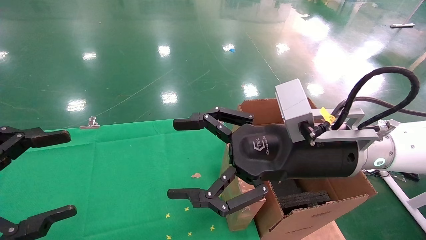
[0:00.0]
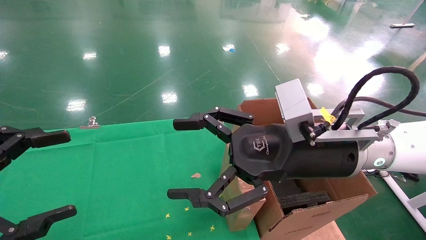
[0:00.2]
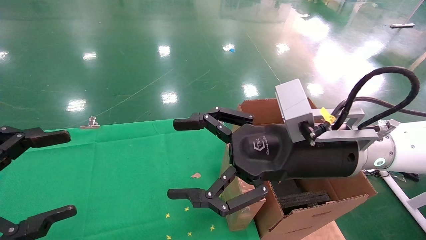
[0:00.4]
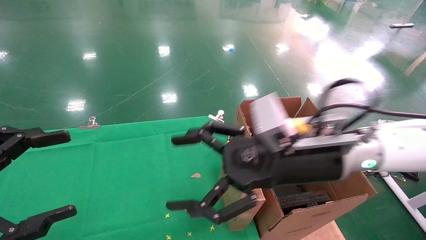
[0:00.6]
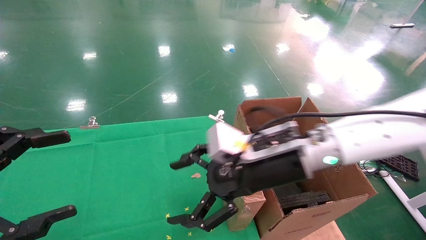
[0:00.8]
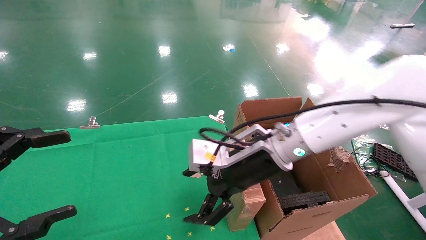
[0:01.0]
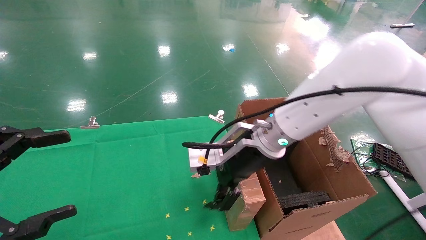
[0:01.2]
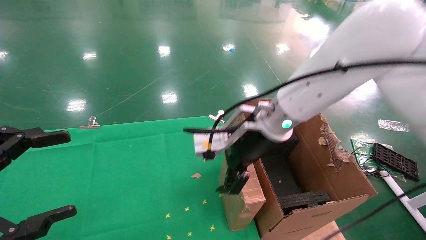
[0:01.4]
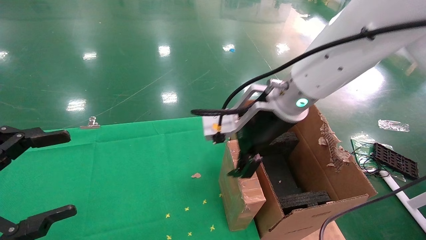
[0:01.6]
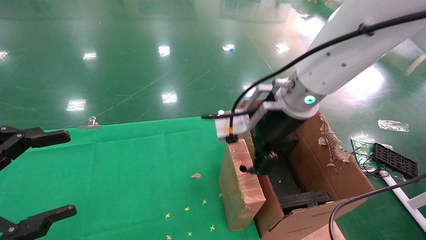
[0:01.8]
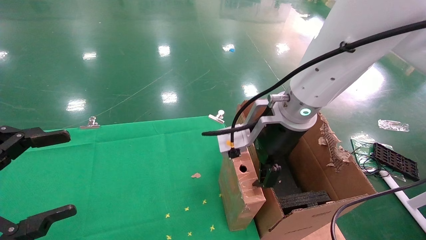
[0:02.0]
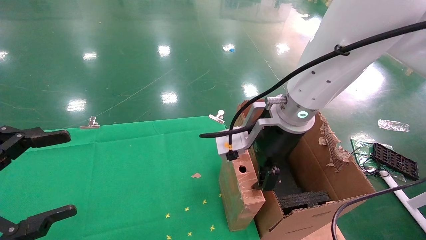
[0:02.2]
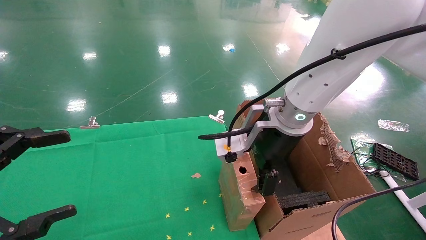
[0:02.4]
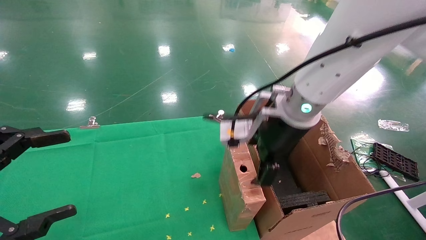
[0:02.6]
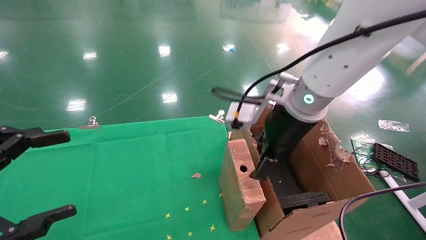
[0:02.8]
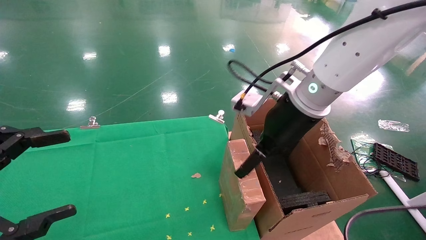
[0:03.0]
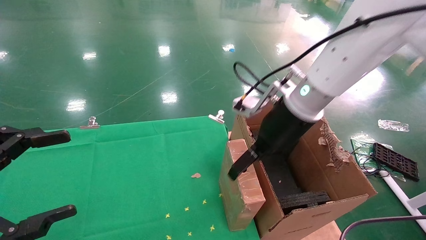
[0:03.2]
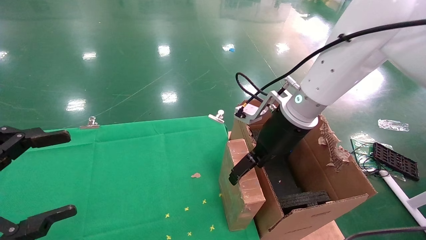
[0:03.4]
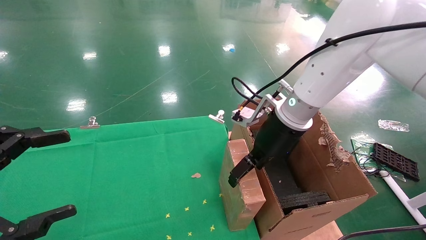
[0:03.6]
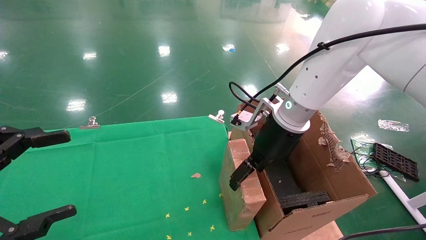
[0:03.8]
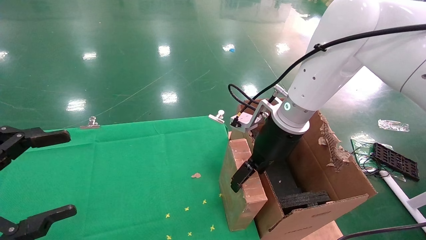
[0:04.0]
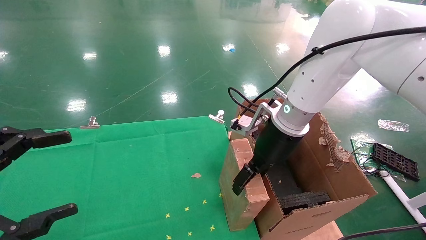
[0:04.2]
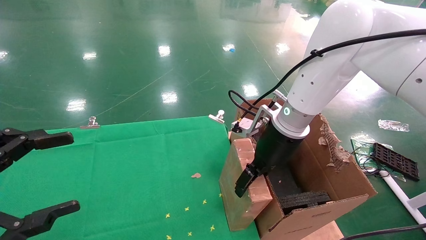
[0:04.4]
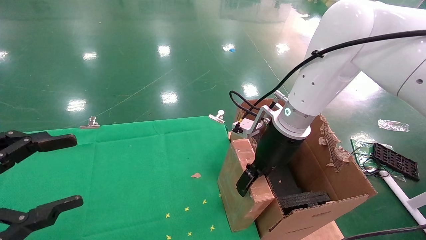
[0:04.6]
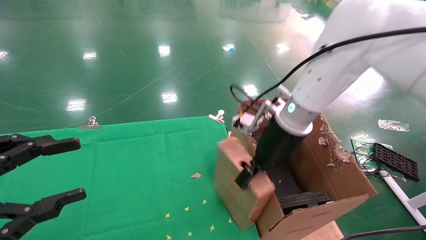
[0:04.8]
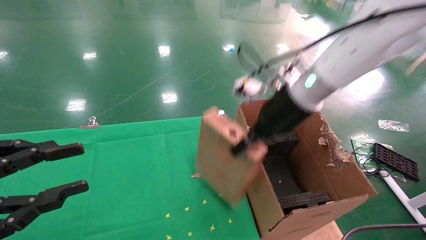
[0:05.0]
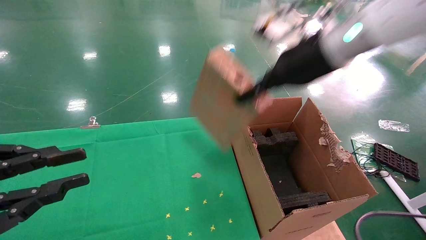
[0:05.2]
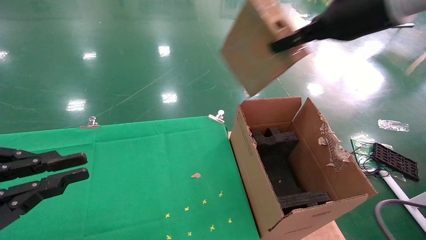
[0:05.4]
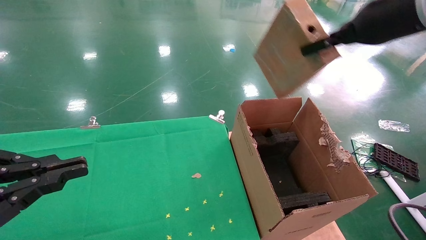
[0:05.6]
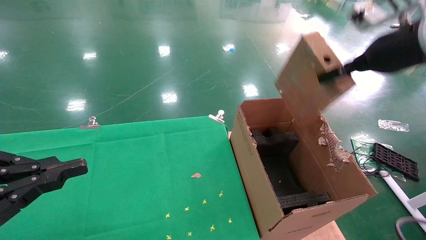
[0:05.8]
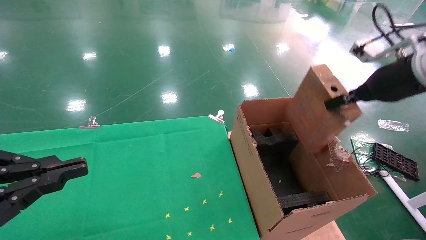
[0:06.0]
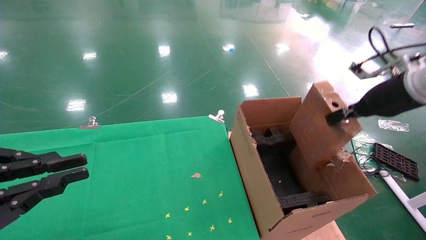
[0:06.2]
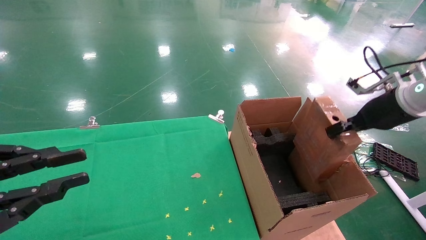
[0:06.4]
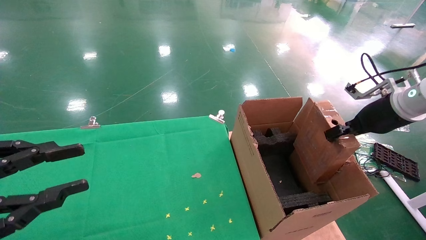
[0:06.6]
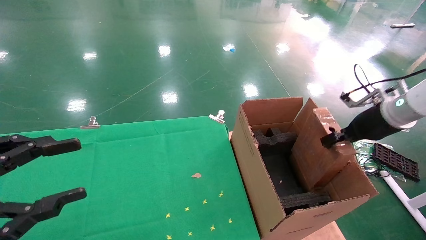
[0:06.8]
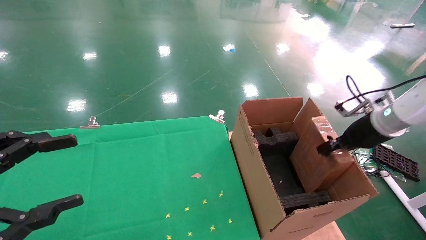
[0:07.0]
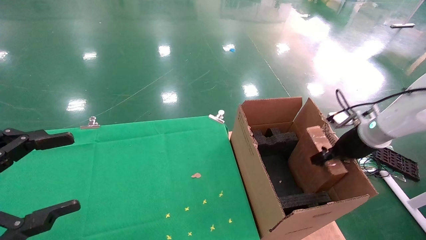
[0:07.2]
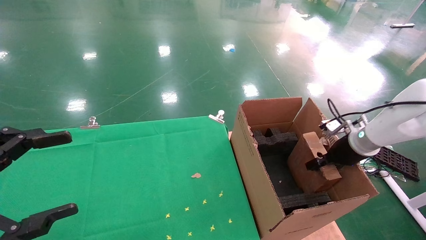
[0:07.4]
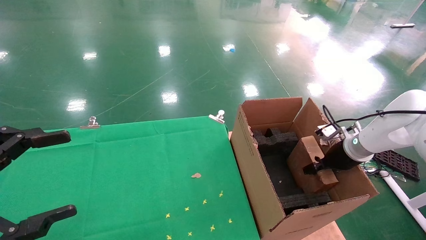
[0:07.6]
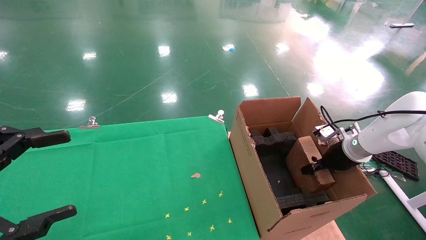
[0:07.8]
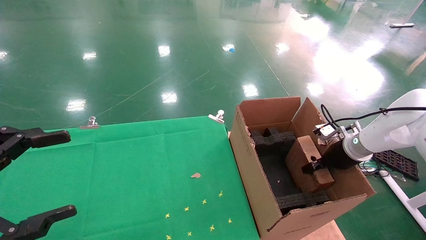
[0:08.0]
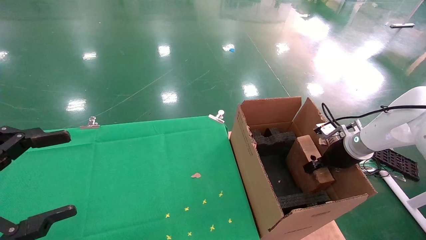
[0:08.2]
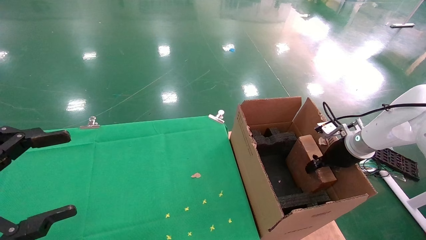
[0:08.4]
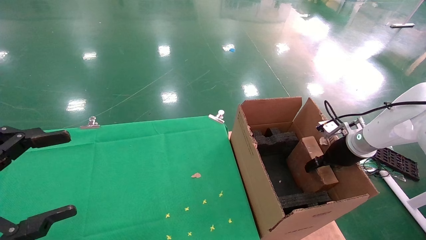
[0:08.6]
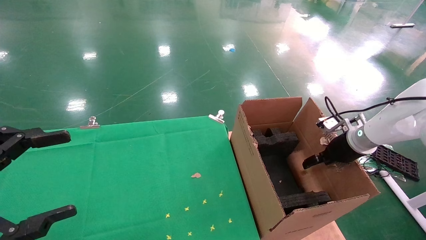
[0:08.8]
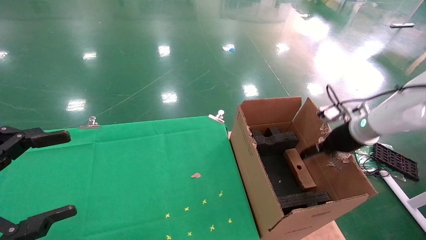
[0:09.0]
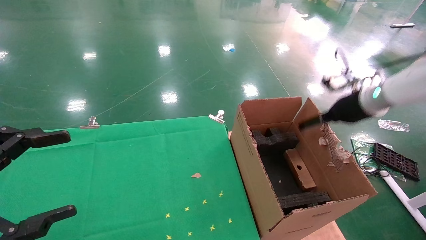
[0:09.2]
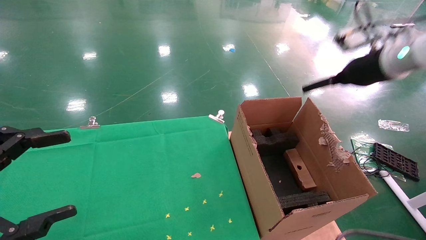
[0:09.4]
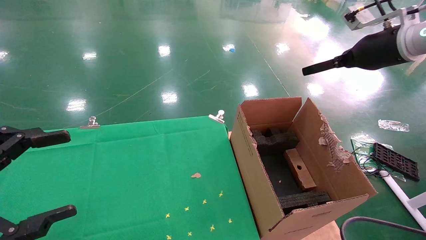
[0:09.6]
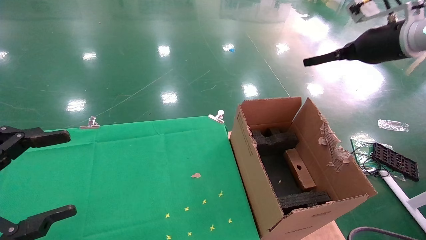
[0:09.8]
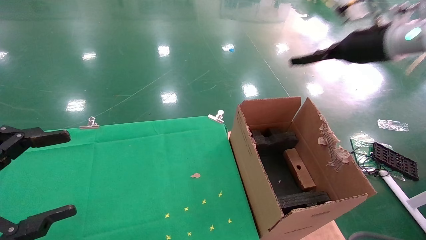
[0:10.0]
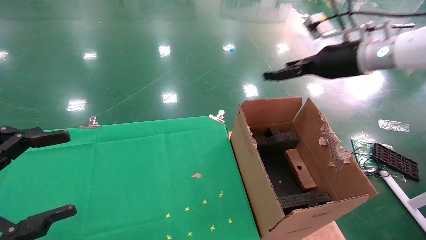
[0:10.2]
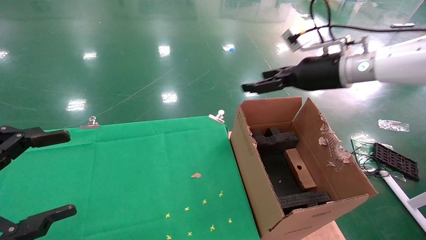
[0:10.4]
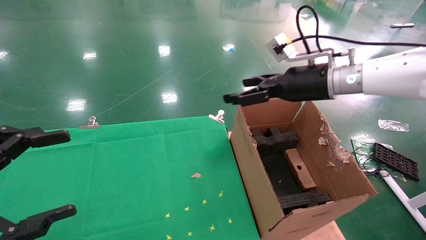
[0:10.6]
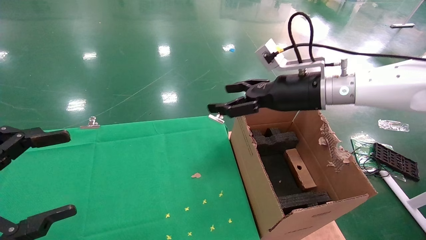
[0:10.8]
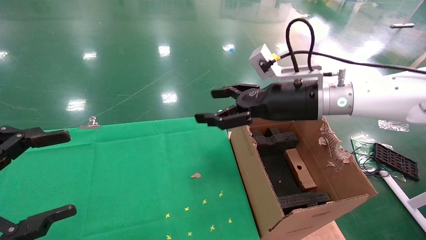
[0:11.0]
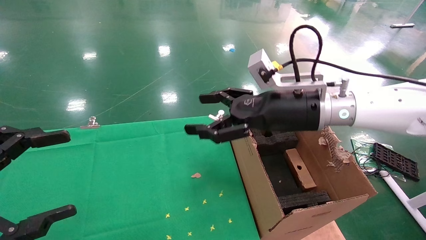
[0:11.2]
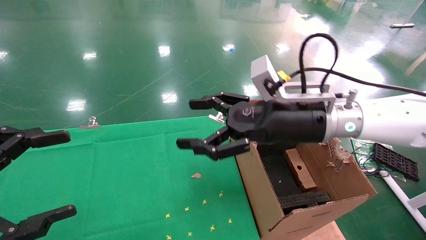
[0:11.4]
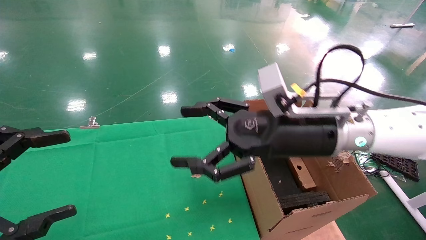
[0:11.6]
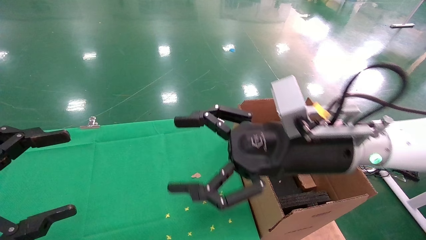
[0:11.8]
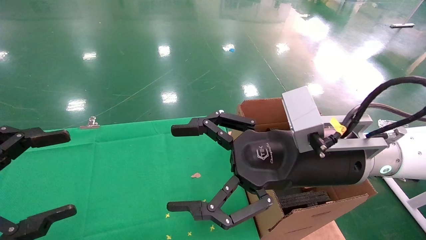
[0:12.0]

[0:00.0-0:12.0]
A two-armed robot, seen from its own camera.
Task of the whole recording: using a robotic arm to pick up a cardboard box and palace it the carton.
Step, 0:01.0 to 0:05.2: Pick up the mouse and the power cord paper box.
Step, 0:05.4 to 0:10.0: Place the mouse and the power cord paper box into the container.
0:00.0 to 0:01.6: The right gripper shifts about 10 cm forward.
0:03.0 to 0:04.4: The right gripper shifts approximately 5 cm downward.
0:04.4 to 0:06.0: The left gripper closes. The right gripper travels to the right and upward by about 25 cm, and closes up.
0:06.0 to 0:07.6: The right gripper shifts some 25 cm downward and forward. Meanwhile the left gripper opens up.
0:07.6 to 0:09.0: The right gripper shifts some 5 cm upward, and opens up.
0:09.0 to 0:10.4: The right gripper heads upward and to the left, covering approximately 15 cm.
0:10.4 to 0:12.0: The right gripper heads backward, to the left and downward, covering approximately 20 cm.

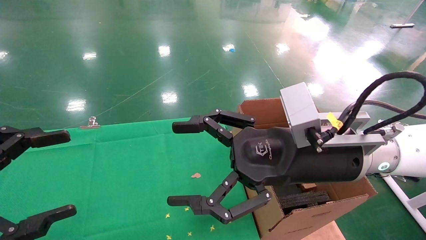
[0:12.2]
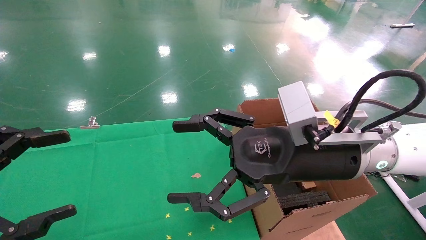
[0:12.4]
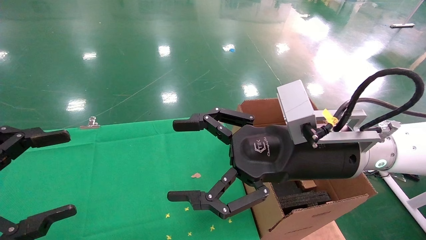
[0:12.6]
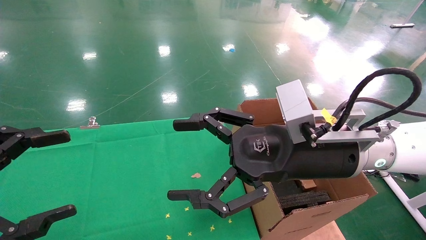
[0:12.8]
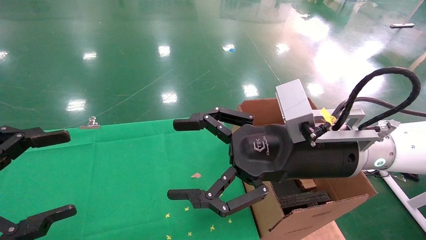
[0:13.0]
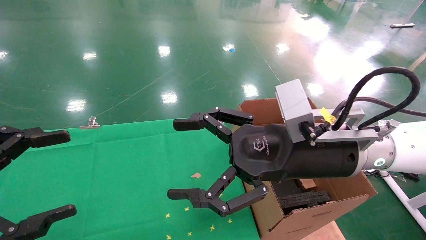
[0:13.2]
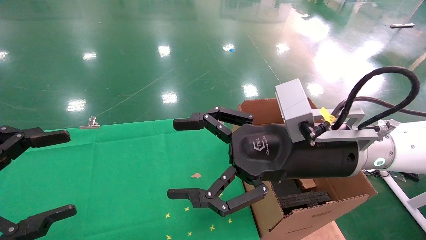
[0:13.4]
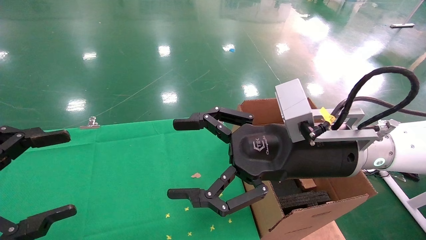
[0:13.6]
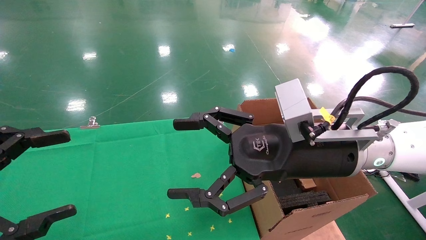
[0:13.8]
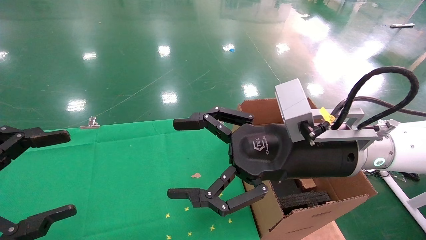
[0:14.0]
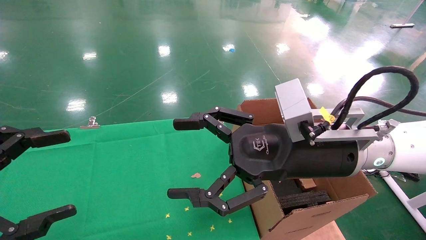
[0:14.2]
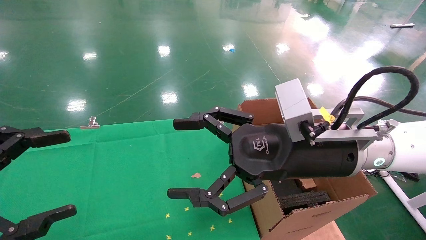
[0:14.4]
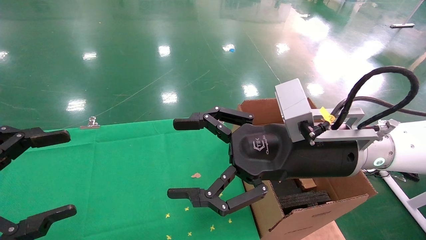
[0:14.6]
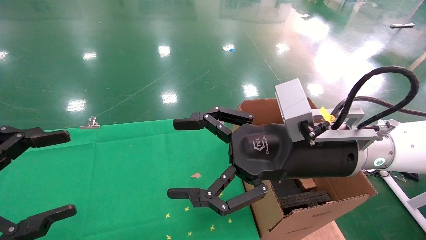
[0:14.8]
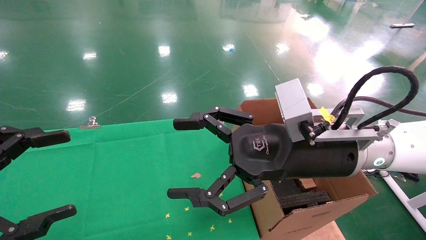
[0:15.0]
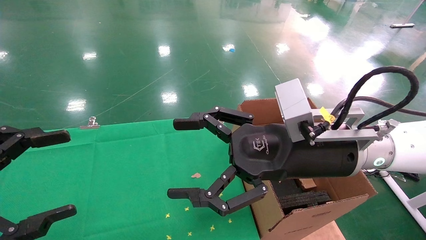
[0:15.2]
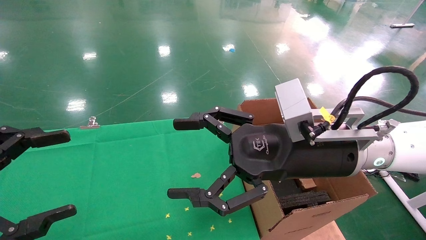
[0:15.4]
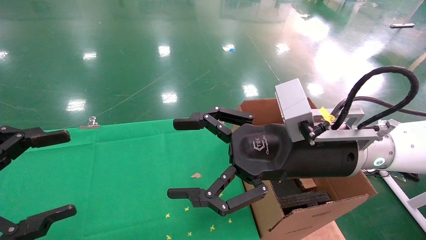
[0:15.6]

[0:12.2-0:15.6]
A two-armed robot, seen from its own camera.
Task of the whole recording: using a robotic arm to pick up a cardboard box and palace it the carton.
0:12.2 to 0:15.6: Neither gripper changes place.
